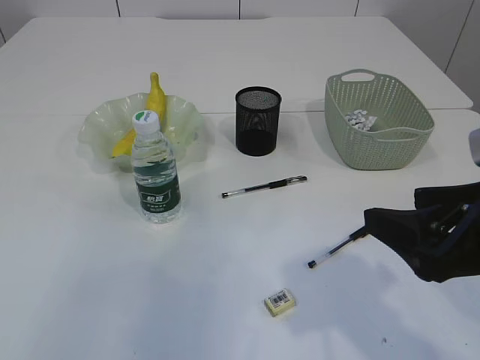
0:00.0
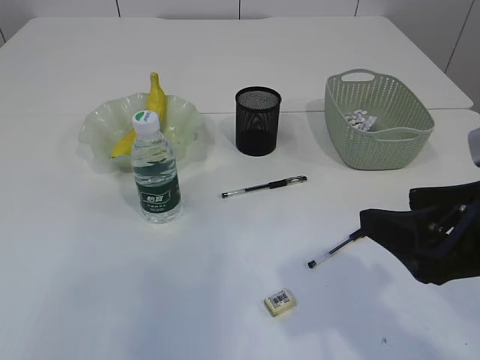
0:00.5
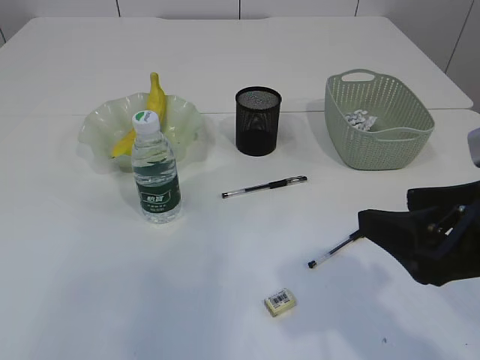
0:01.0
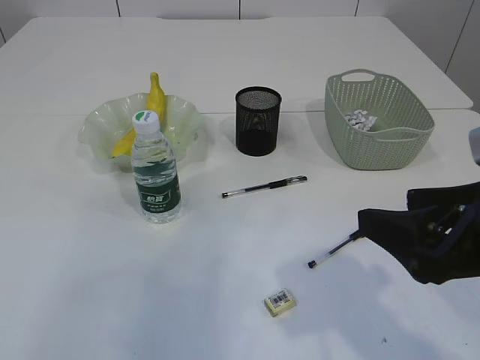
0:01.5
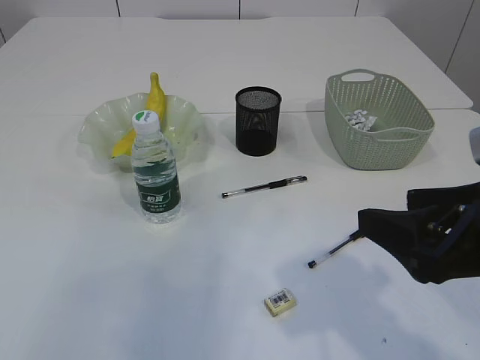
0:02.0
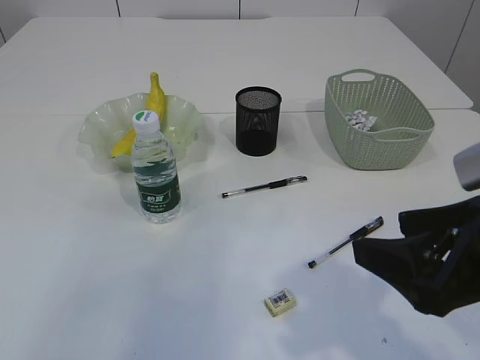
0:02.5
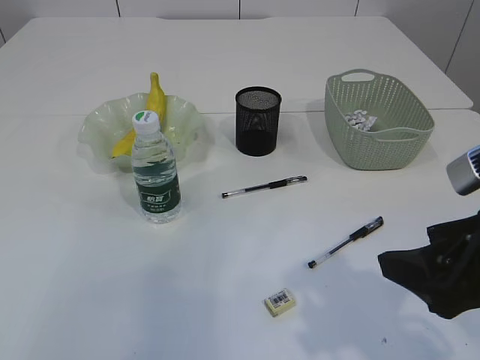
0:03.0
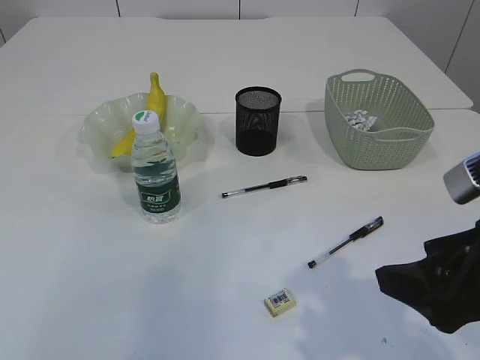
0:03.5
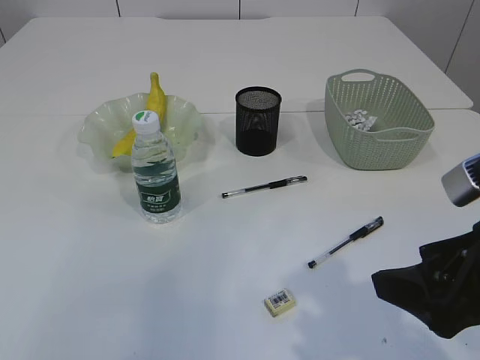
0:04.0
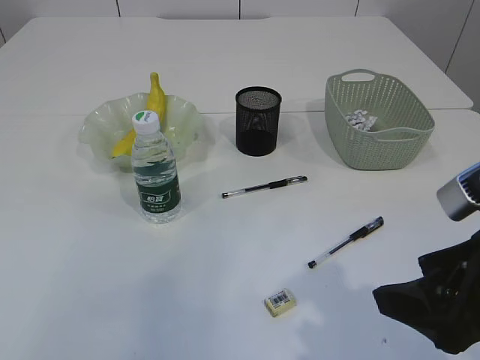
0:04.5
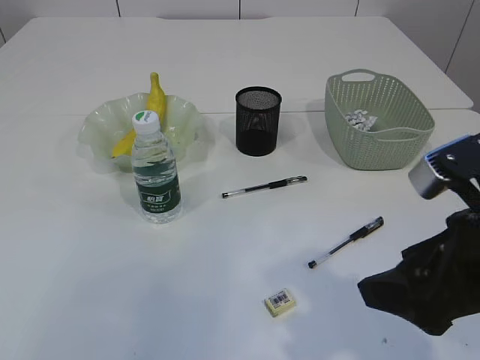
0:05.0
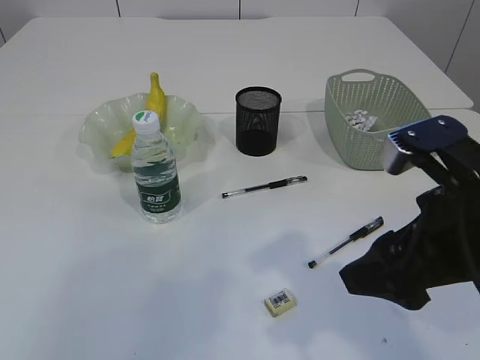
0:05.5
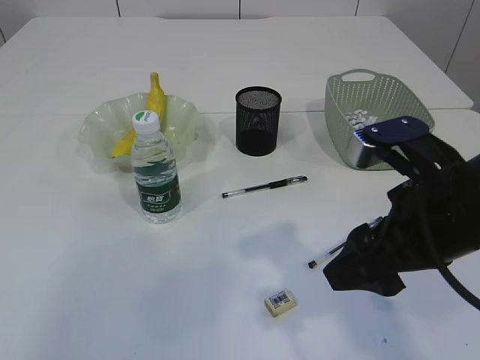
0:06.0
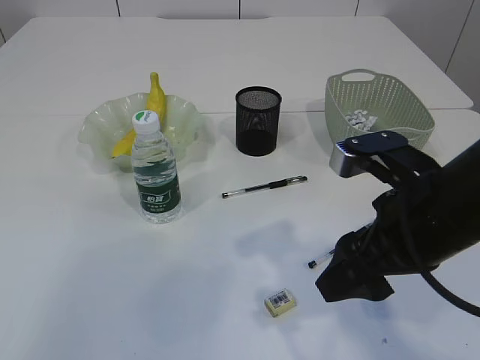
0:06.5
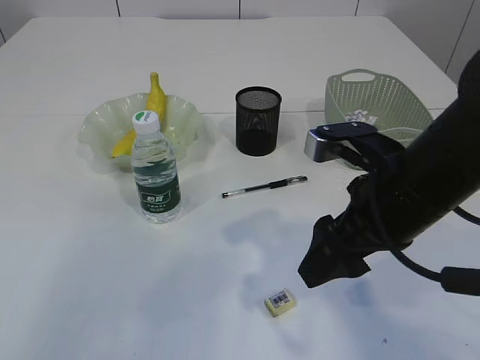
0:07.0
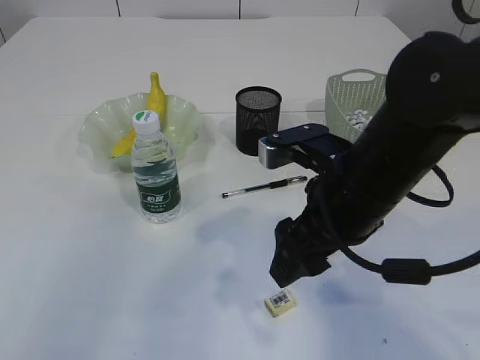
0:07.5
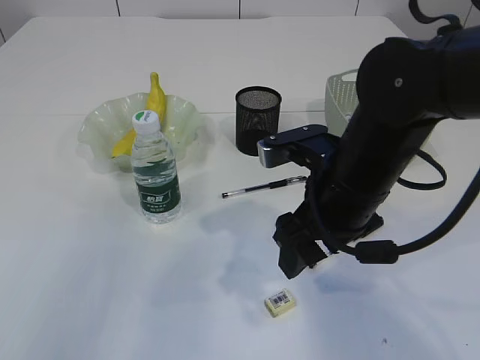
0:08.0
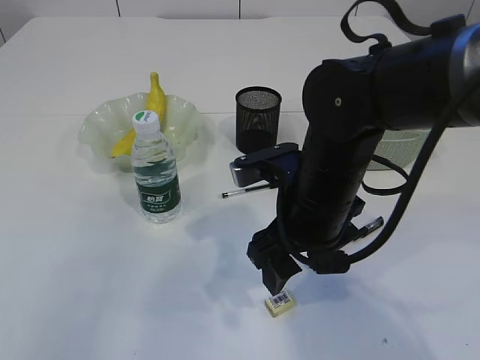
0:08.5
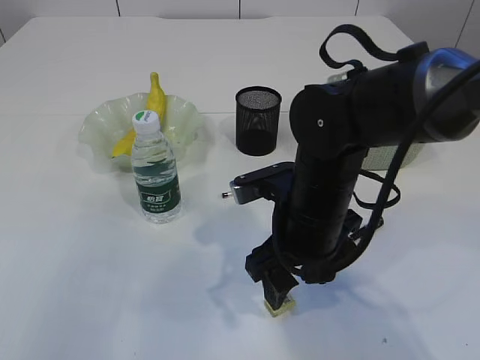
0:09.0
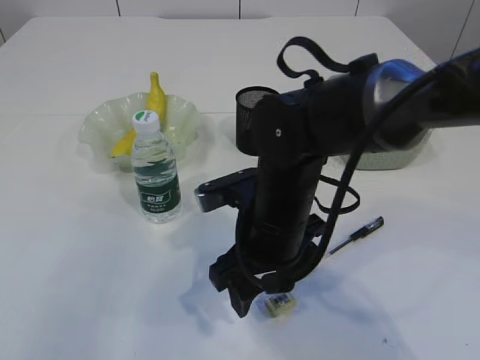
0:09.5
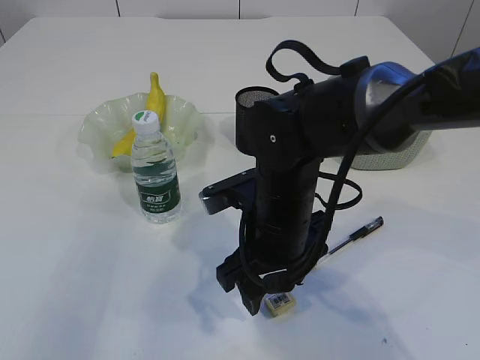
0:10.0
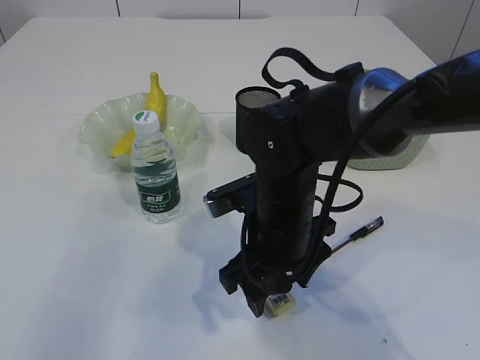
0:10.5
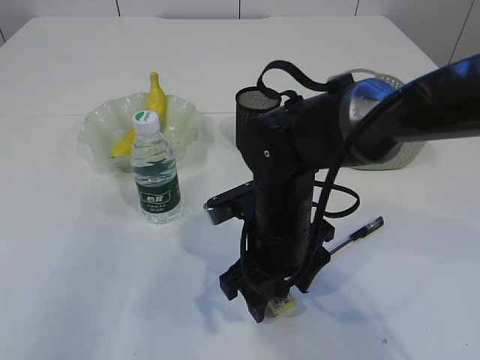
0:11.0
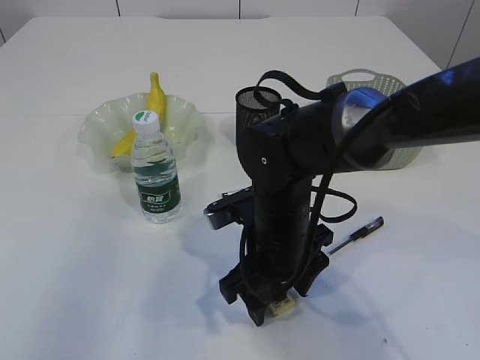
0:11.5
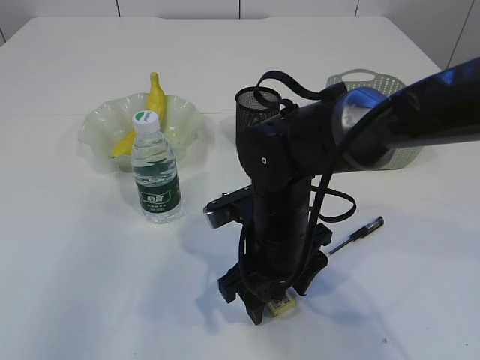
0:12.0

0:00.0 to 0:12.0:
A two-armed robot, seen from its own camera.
0:00.0 to 0:02.0: Both grippers stay put.
0:02.0 to 0:04.0: The grippers make only small movements.
0:04.0 to 0:06.0: The right gripper shifts some 5 cm forward.
0:06.0 to 0:08.0: The right gripper shifts some 10 cm forward and to the left.
0:08.0 to 0:10.0: The right gripper is displaced to the left and downward by some 10 cm.
0:10.0 to 0:12.0: The grippers move only a little.

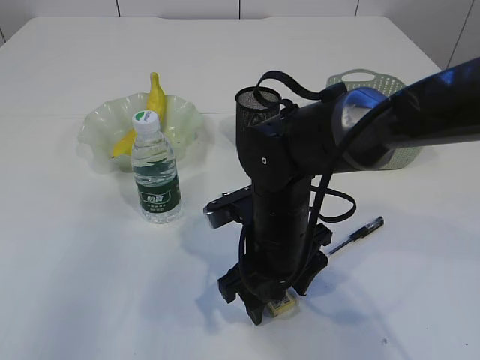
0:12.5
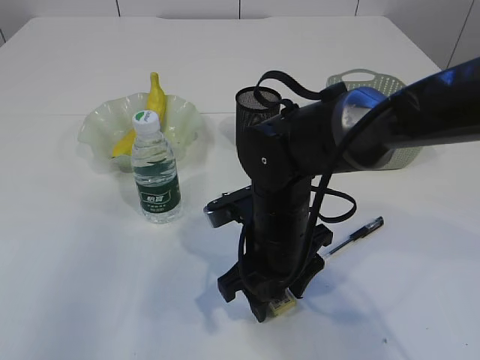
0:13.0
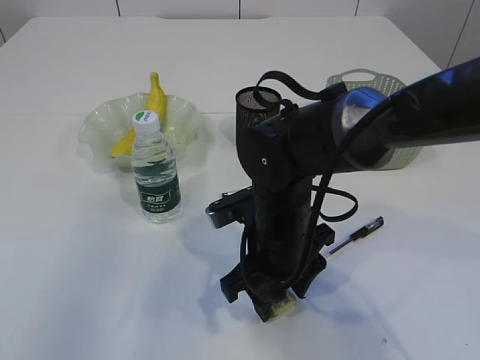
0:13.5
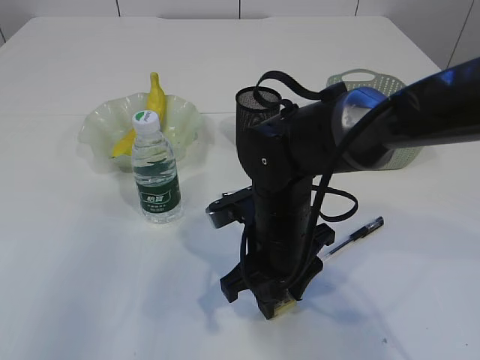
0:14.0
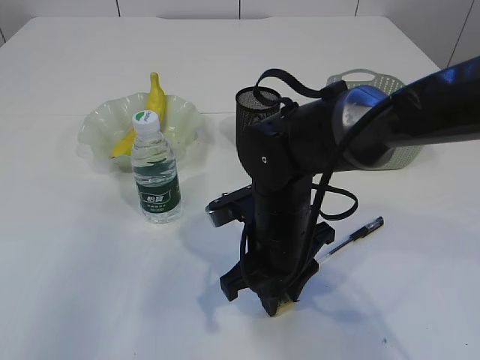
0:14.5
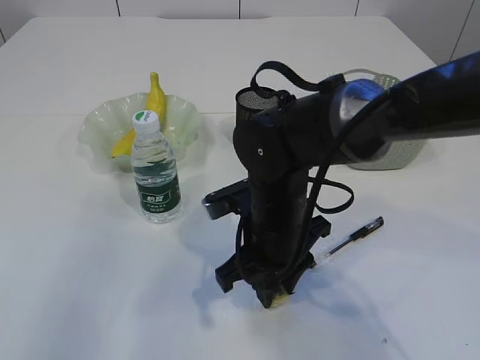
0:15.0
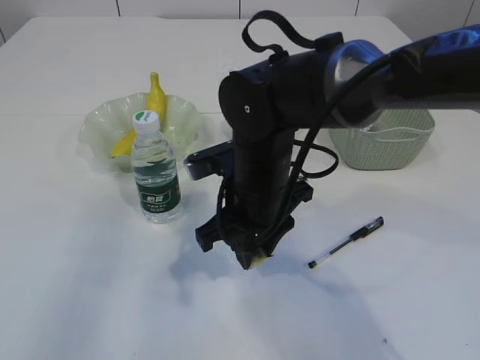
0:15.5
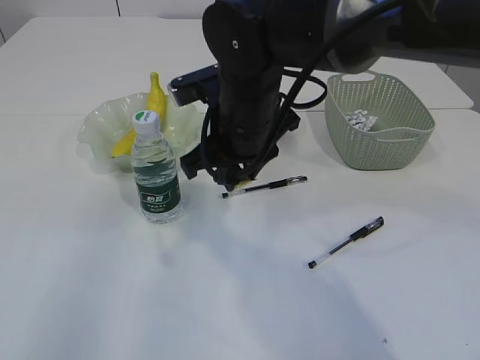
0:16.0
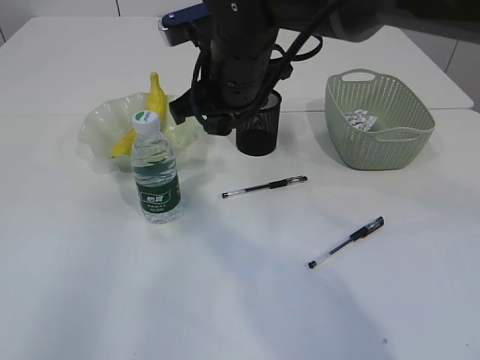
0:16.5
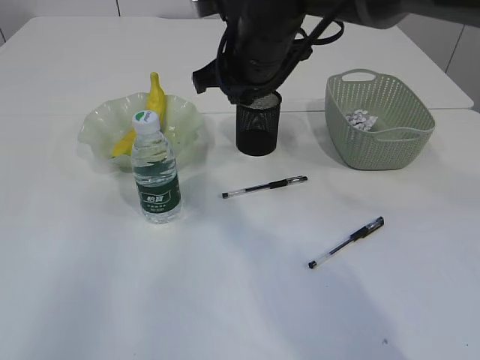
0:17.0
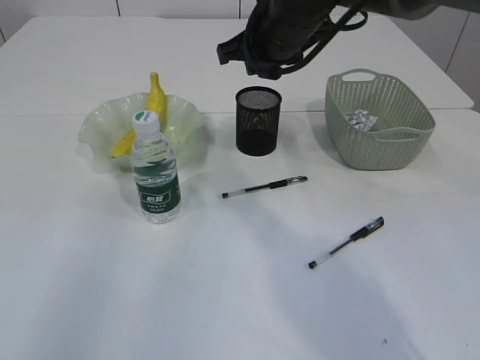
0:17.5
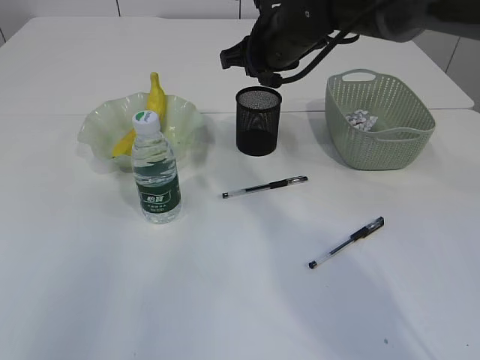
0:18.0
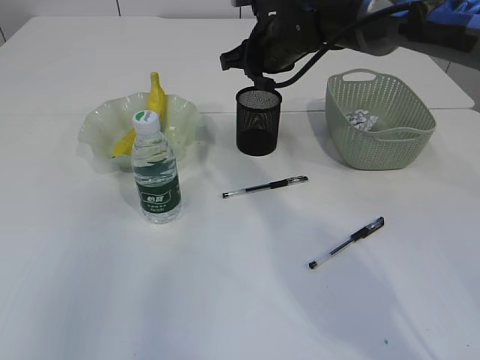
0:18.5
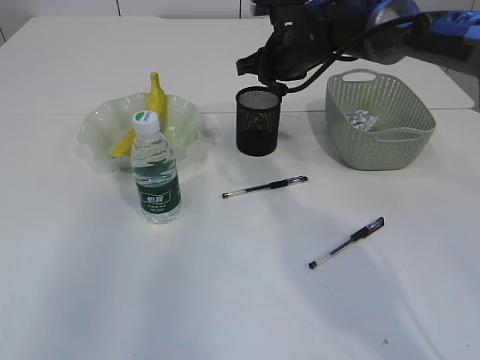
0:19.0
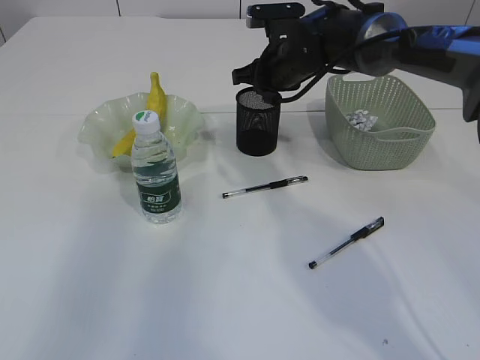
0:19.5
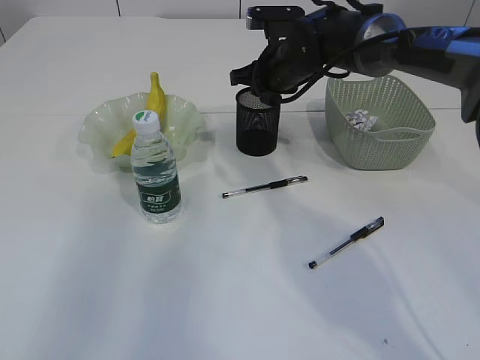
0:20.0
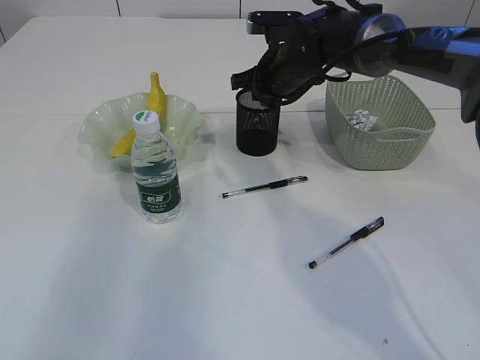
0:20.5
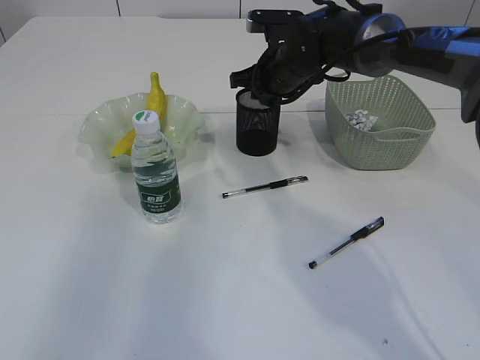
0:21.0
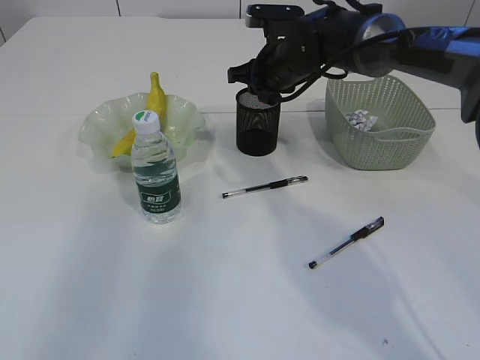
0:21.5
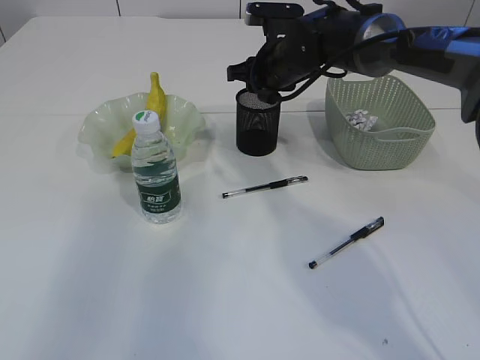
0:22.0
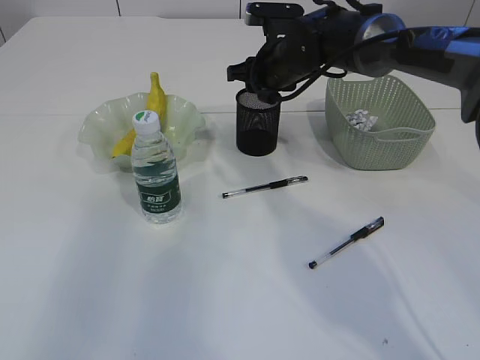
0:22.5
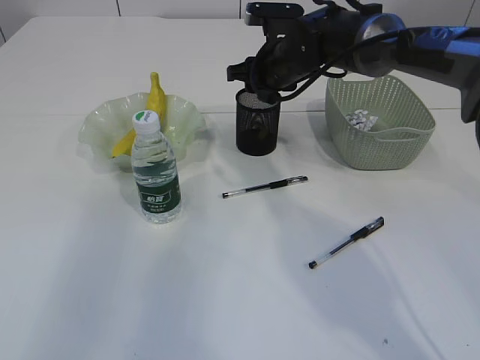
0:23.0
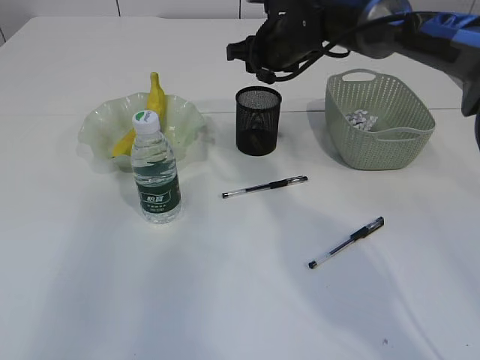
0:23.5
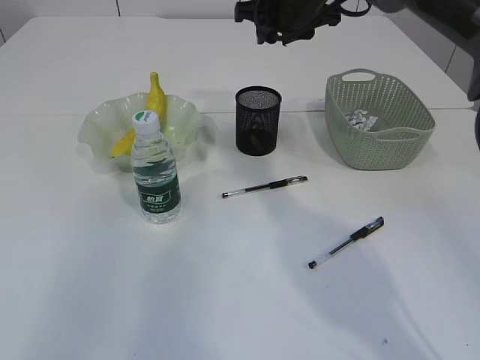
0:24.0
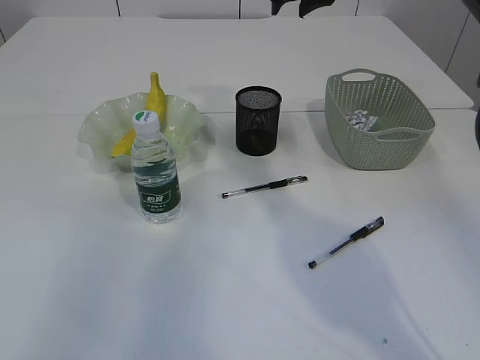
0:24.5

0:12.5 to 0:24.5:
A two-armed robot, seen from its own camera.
Step, 0:12.5 to 0:15.0: Pick up the eraser.
Step, 0:15.5 to 0:23.0: Place the eraser into the pen holder.
0:12.5 to 0:14.5: The right gripper closes up.
0:14.5 to 0:16.5: The right gripper shifts some 15 cm upward and forward.
0:16.5 to 0:18.5: The right gripper is displaced forward and to the right by approximately 15 cm.
0:18.5 to 0:20.5: The grippers move only a little.
0:20.5 to 0:22.5: Neither gripper changes place.
0:22.5 to 0:24.5: The right gripper shifts approximately 15 cm upward.

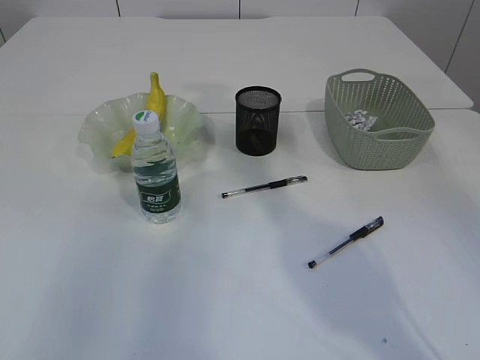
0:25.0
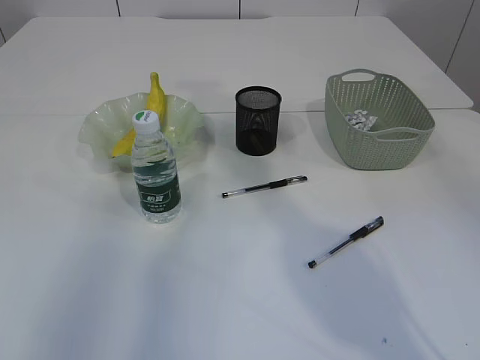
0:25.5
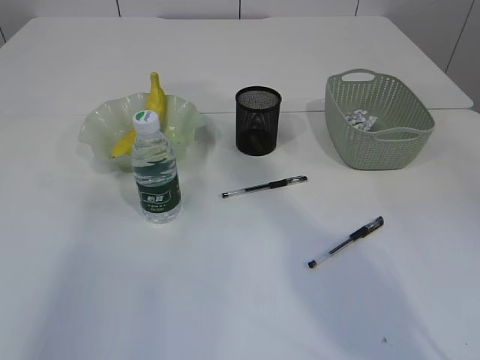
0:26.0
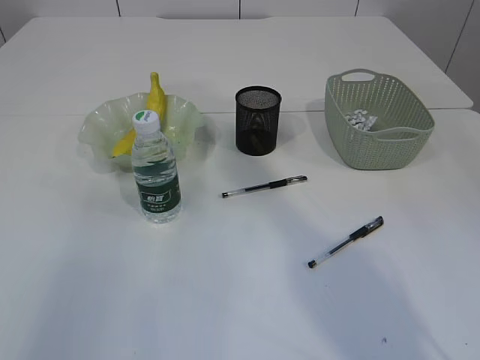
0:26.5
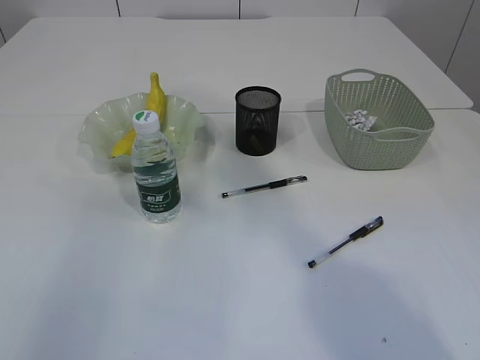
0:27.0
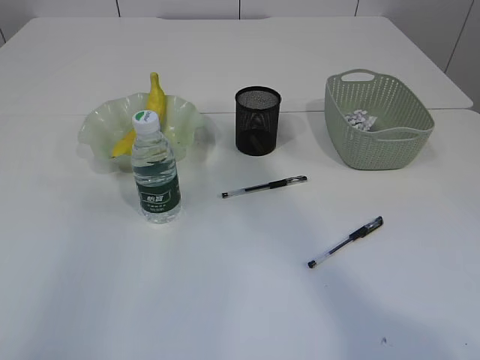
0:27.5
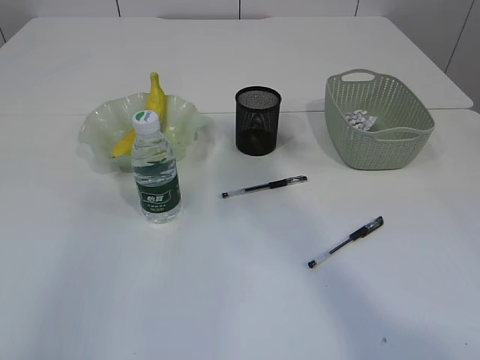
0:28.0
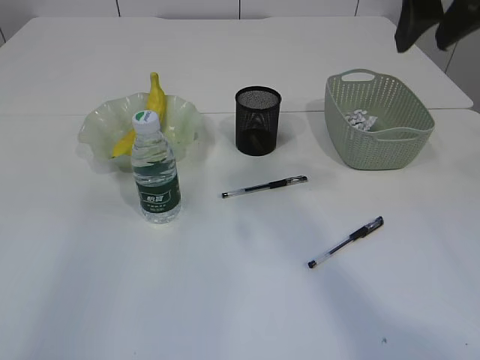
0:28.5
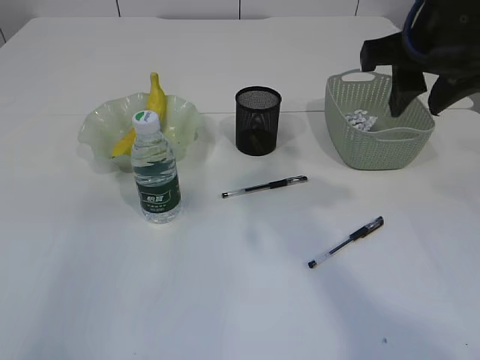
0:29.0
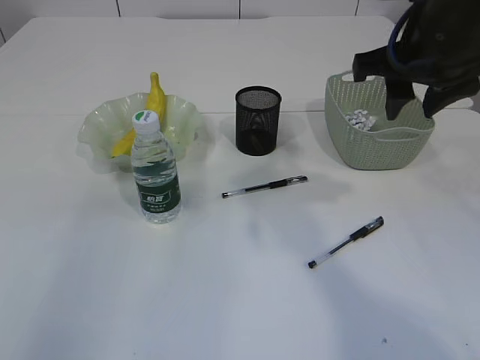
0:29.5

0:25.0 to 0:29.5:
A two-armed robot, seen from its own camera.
0:27.0 to 0:29.5: The right gripper travels downward by some 25 cm.
